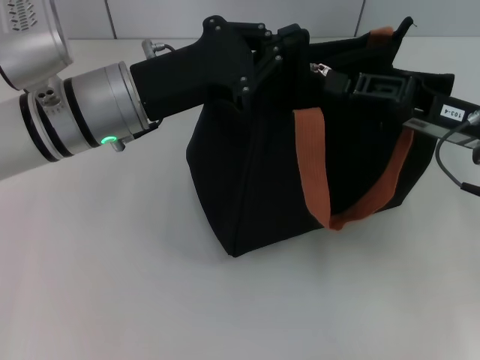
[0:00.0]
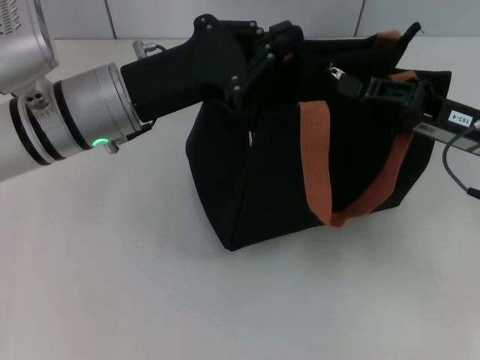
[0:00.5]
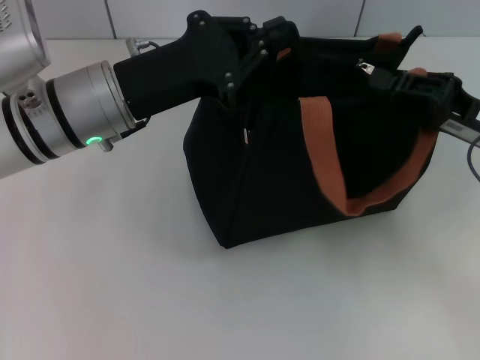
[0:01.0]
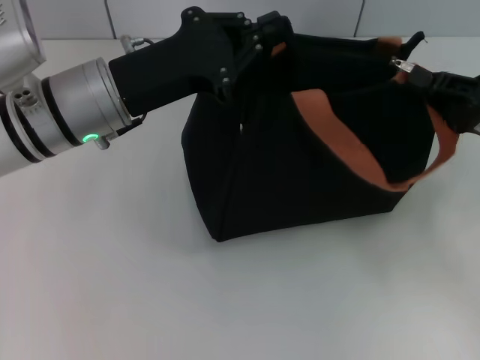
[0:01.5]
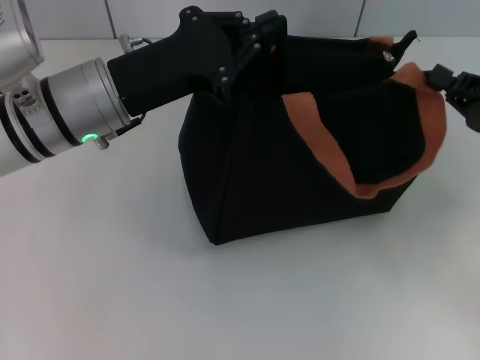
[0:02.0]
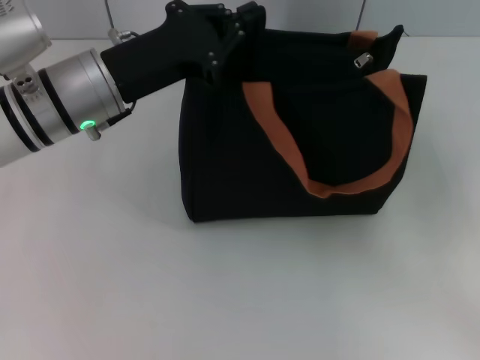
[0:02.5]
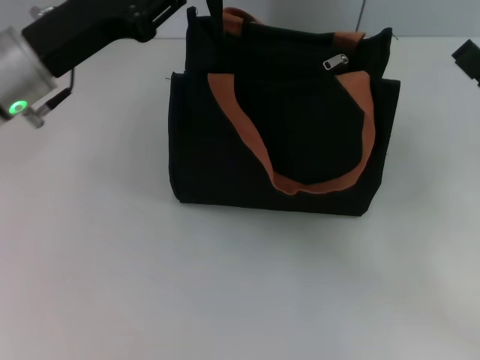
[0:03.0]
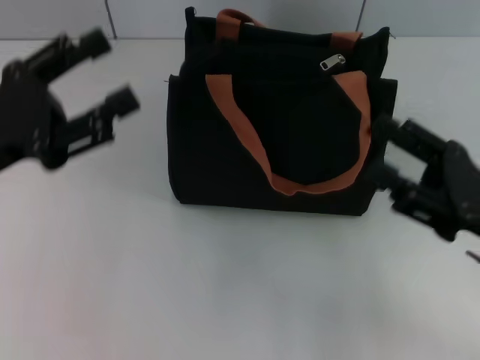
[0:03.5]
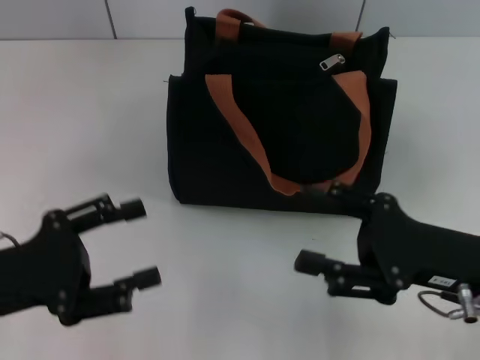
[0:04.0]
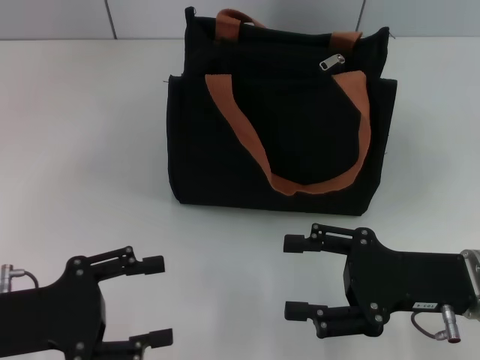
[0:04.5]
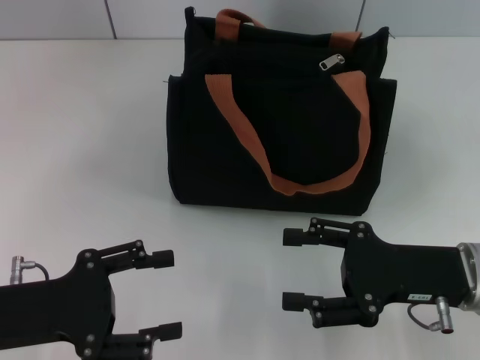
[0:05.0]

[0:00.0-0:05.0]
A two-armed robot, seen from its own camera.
Step, 0:02.0 to 0:03.0: Grab the zipper with your left hand.
0:00.0 to 0:02.5: The right gripper heads to the right and backward, covering about 10 cm.
0:02.5 to 0:05.0: The right gripper travels to the left by approximately 10 cm, and opens its fingers, while the left gripper goes about 20 cm backward, to the left and downward, and opens its fingers.
